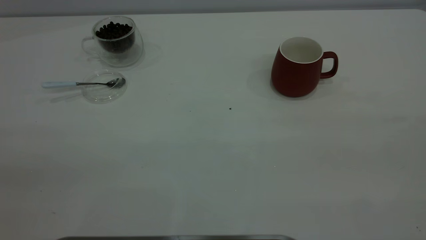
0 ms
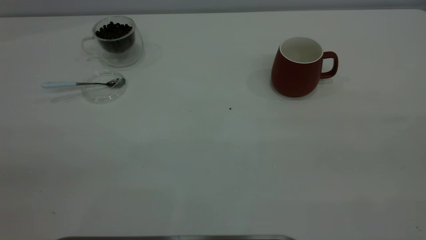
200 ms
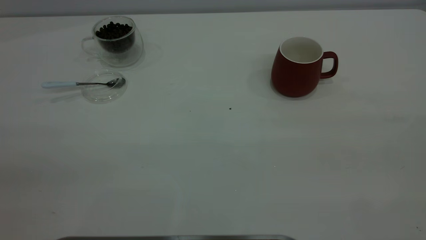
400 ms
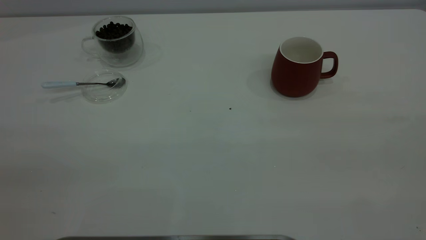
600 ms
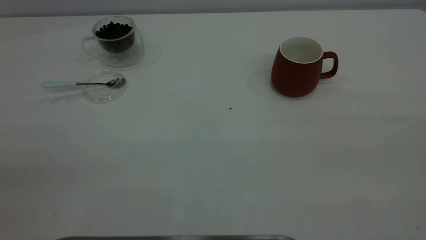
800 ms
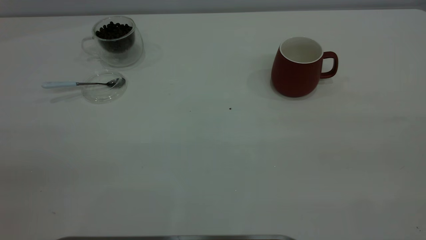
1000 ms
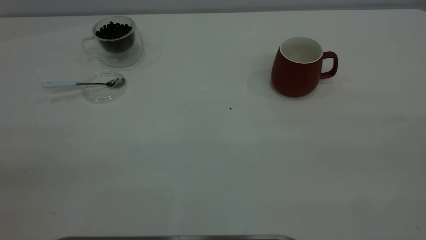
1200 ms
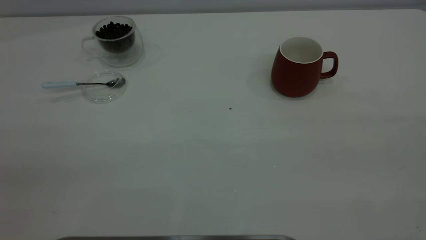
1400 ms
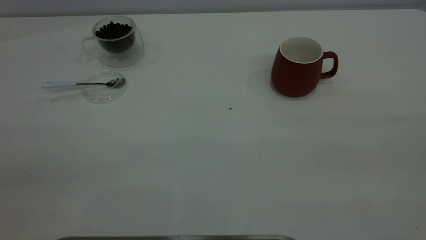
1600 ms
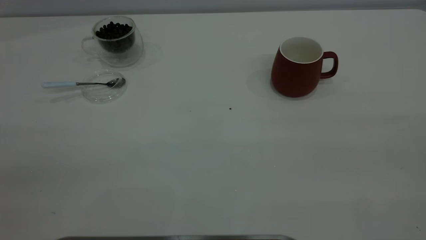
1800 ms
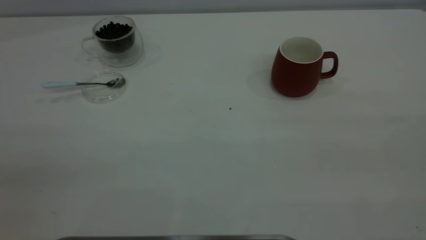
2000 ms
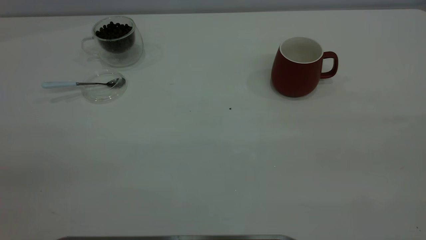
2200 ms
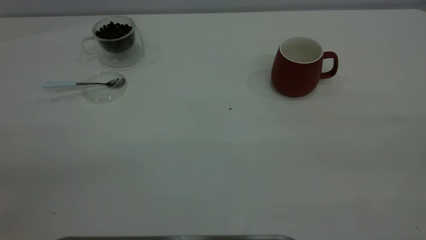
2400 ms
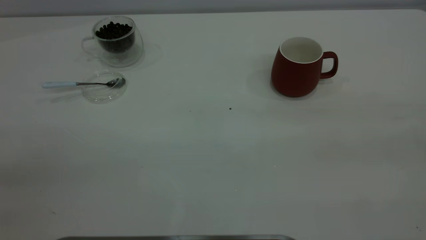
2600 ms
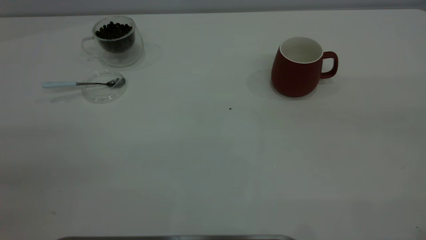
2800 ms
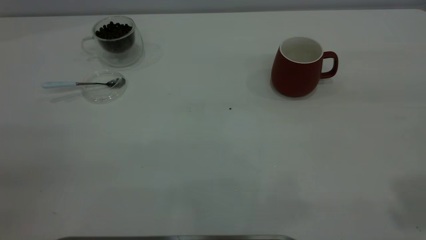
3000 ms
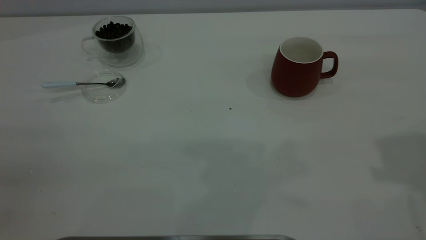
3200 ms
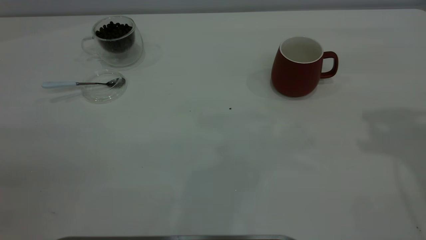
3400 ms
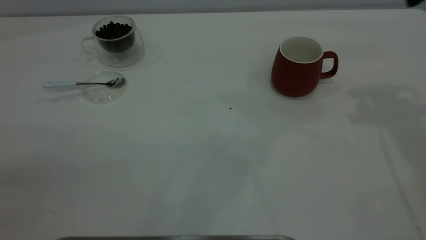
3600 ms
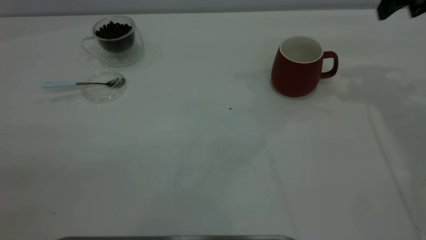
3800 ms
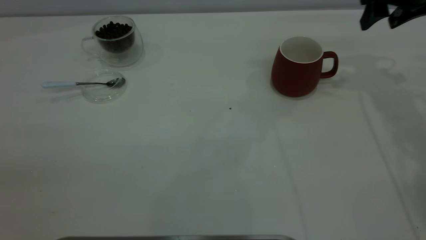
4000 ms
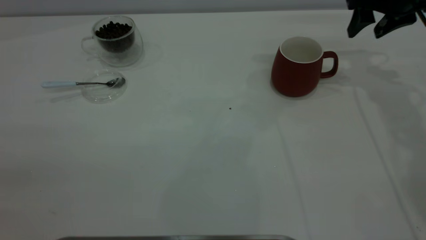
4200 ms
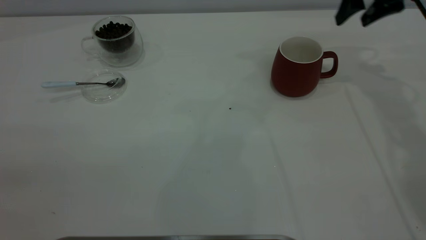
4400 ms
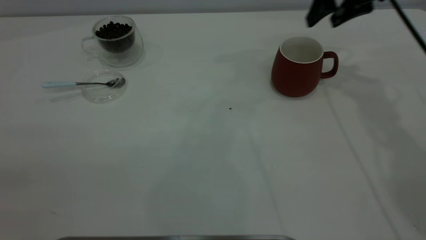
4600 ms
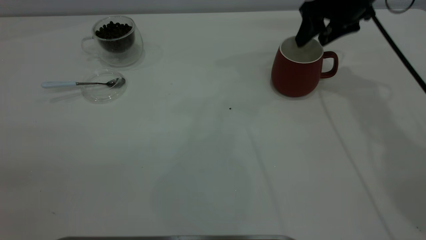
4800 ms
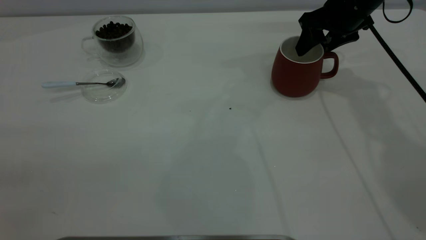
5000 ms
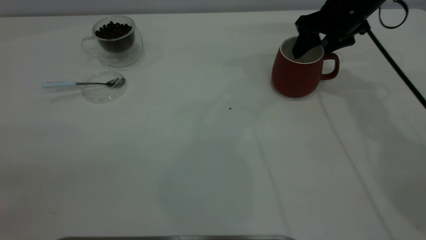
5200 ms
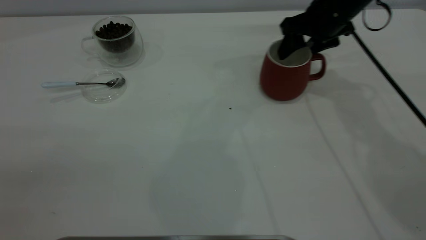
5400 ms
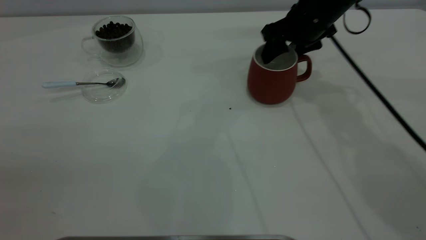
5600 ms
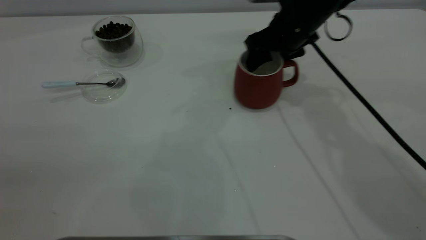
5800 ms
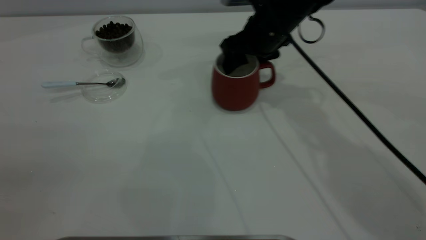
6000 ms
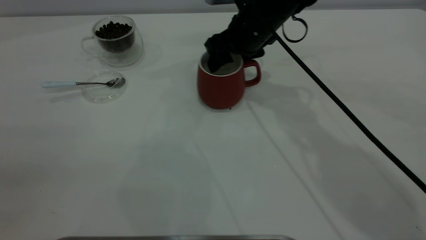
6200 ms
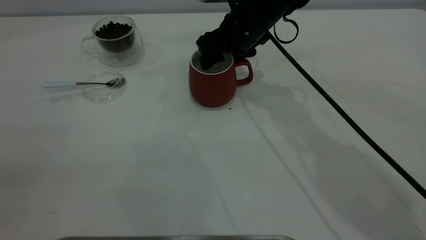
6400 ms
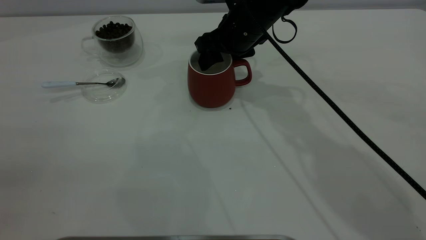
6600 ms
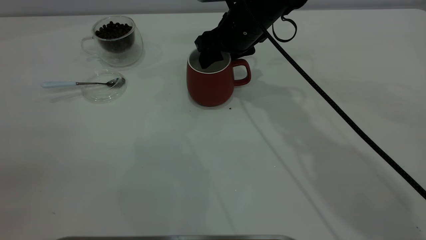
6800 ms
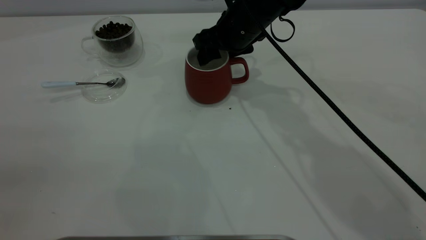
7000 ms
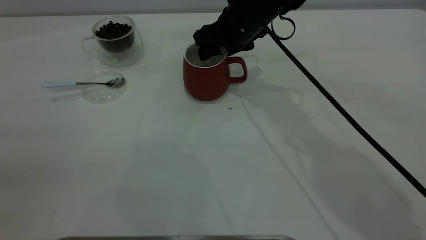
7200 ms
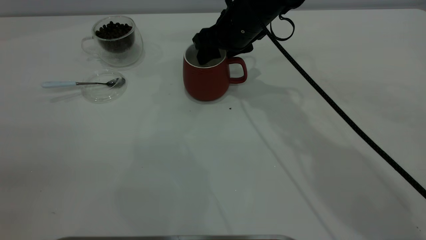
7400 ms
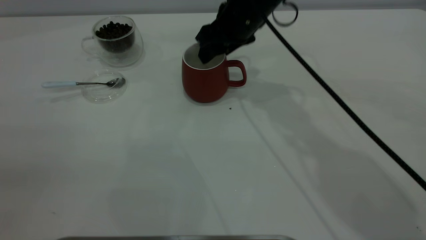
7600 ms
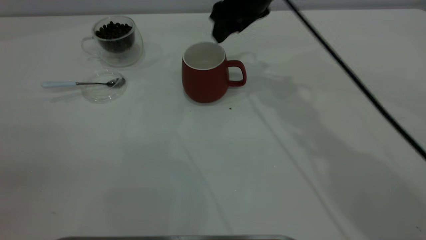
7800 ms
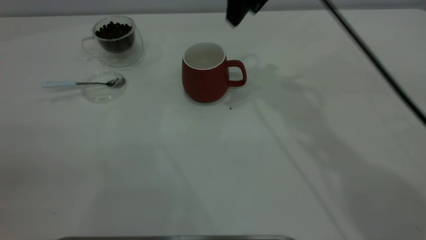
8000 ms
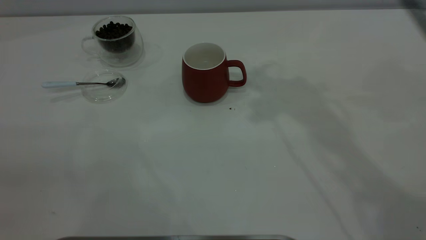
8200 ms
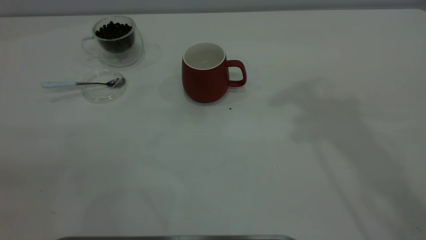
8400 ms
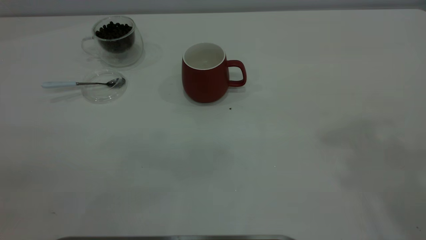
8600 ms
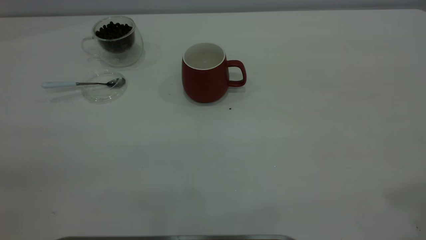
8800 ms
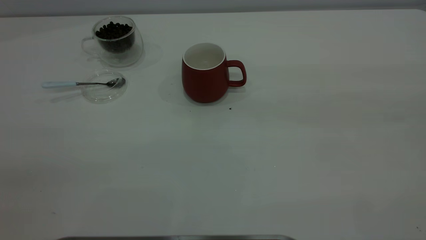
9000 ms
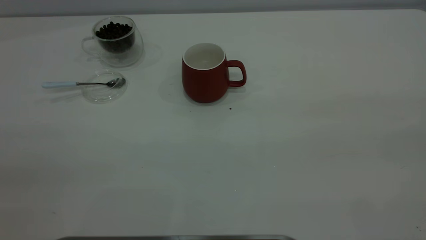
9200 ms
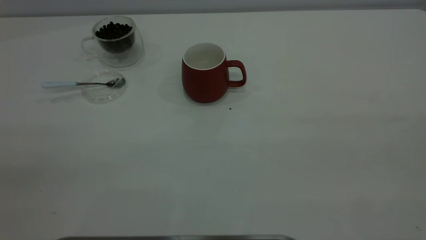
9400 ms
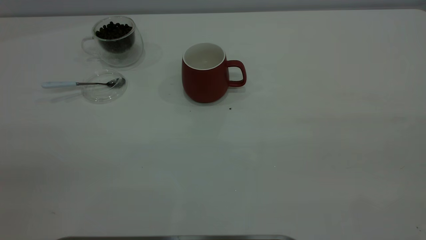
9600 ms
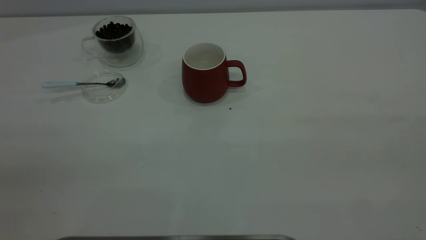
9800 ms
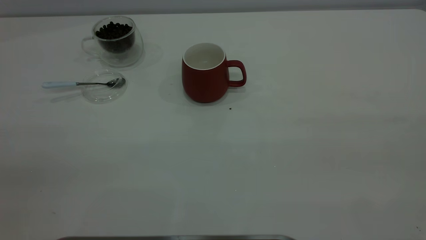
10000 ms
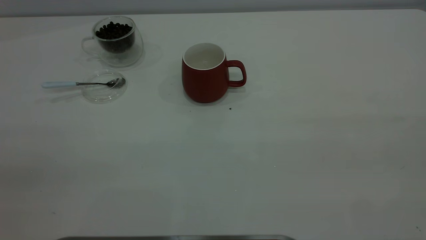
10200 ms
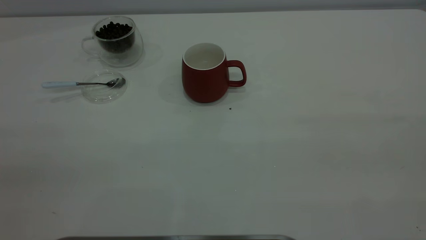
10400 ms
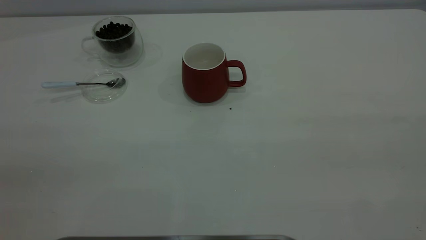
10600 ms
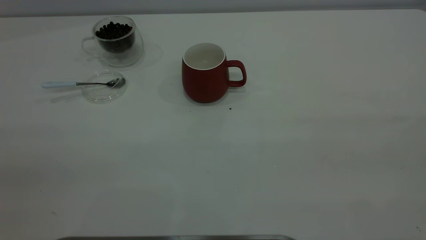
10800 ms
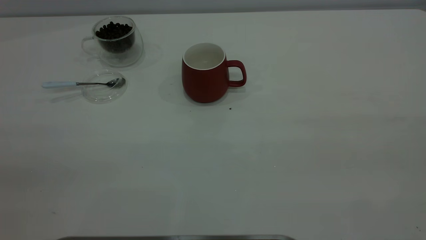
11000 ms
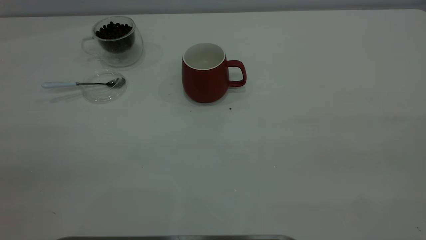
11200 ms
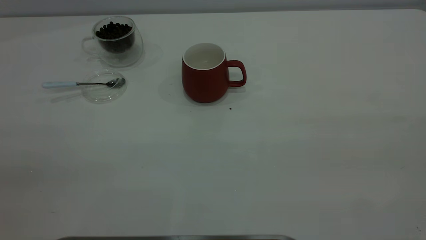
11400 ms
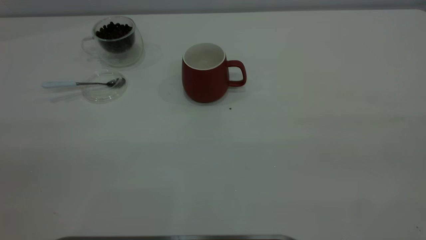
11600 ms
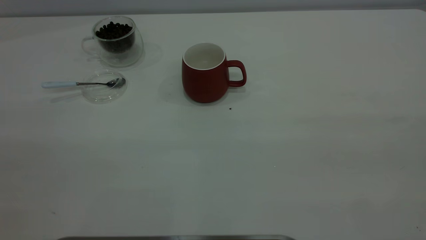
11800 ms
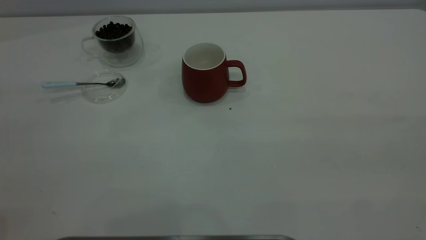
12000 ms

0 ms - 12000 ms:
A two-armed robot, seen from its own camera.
Task of the whole recording: the right gripper place the red cup in the center of the table, the left gripper take the blue spoon from the cup lid and scoop out the coffee beans from the coffee cup and put them into the red cup, the left gripper put the spoon back into the cup lid.
Step, 0 ms - 7600 ms: Move the cup to the center of view.
0 ms - 1600 ms: Neither gripper changes place.
3000 ms - 4400 ms: The right gripper shifts approximately 35 cm forward and downward.
4400 ms - 6000 ms: The right gripper goes approximately 20 cm to the left and downward.
6000 ms - 7600 ms: The grippers stay close to where they were, moving slightly.
7600 ms - 9000 ms: The right gripper is displaced backward, to the right and upward by some 50 cm.

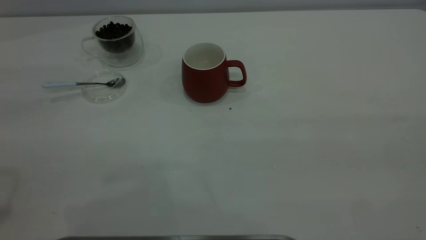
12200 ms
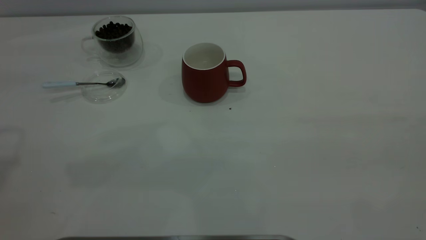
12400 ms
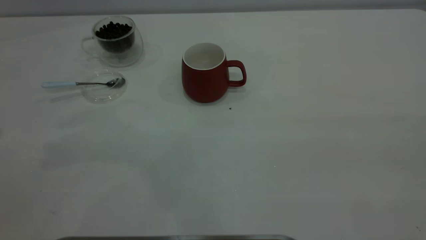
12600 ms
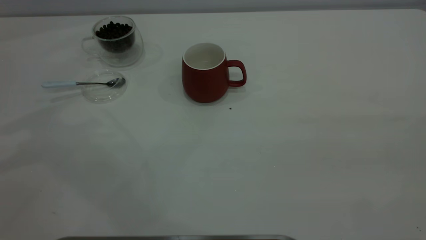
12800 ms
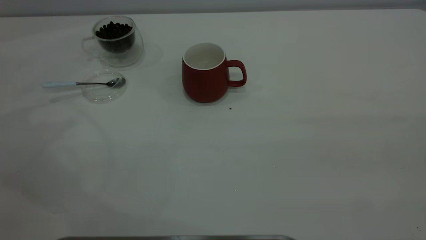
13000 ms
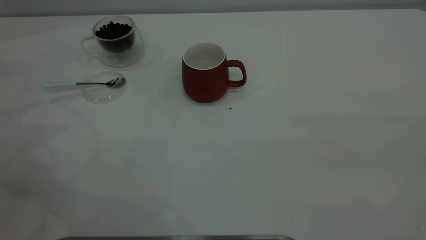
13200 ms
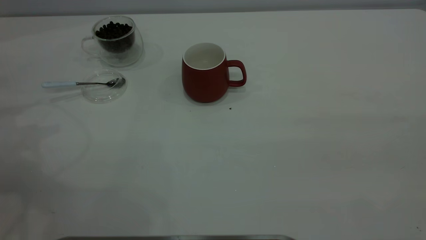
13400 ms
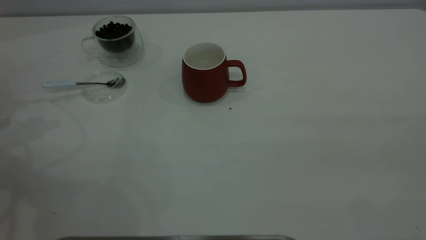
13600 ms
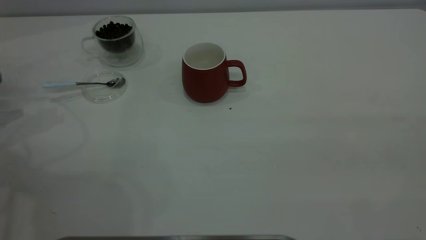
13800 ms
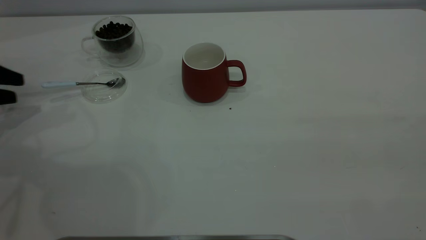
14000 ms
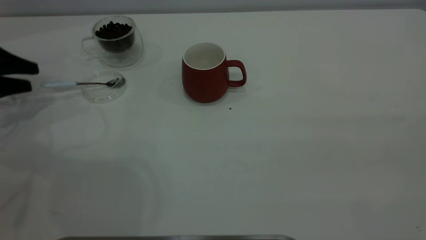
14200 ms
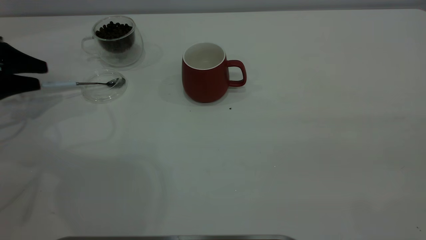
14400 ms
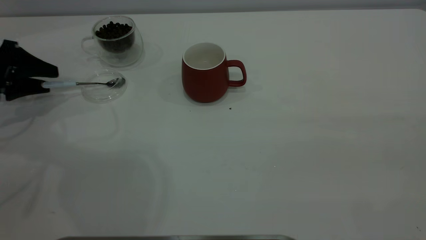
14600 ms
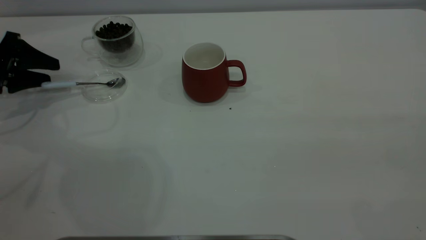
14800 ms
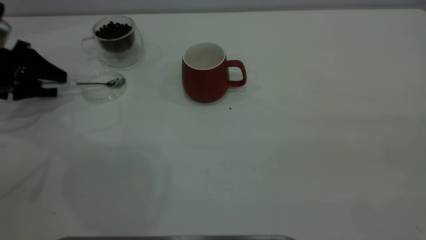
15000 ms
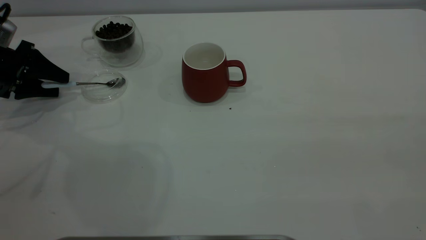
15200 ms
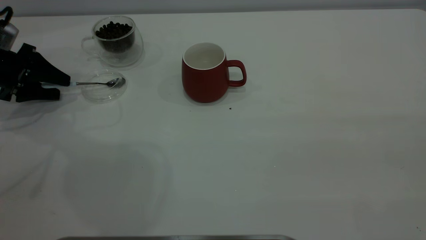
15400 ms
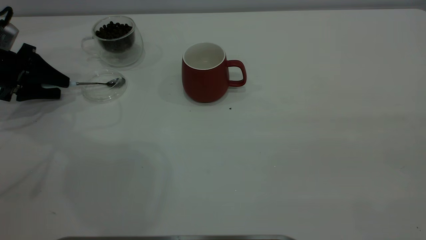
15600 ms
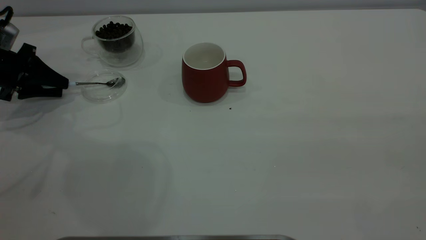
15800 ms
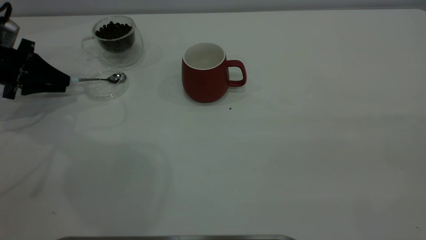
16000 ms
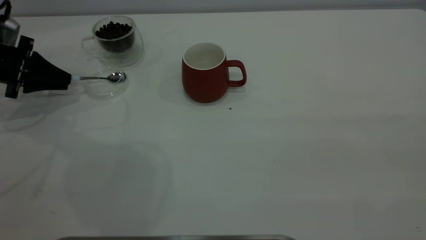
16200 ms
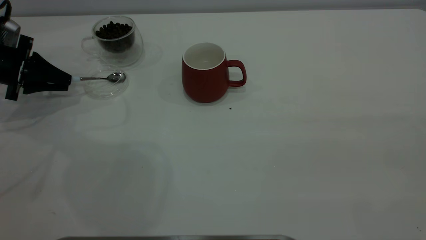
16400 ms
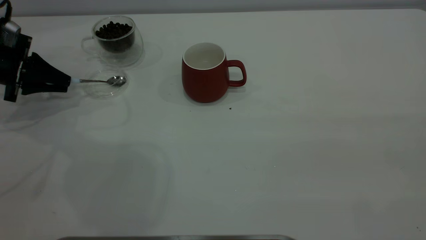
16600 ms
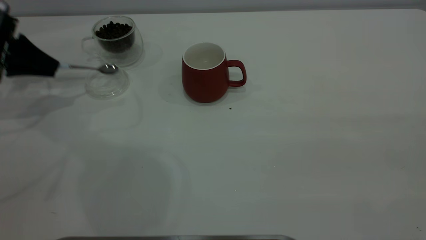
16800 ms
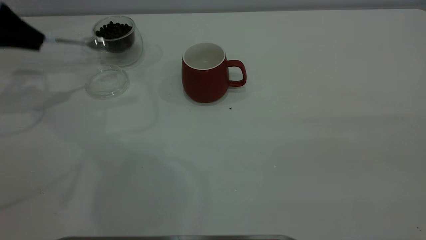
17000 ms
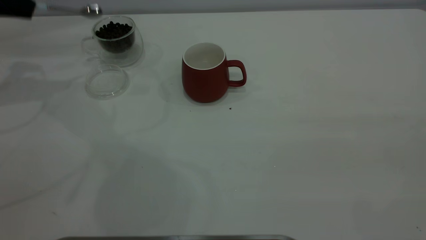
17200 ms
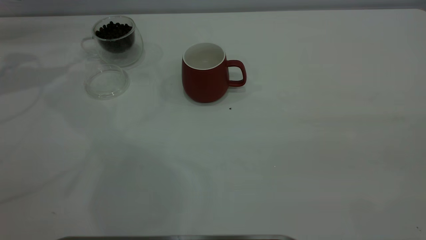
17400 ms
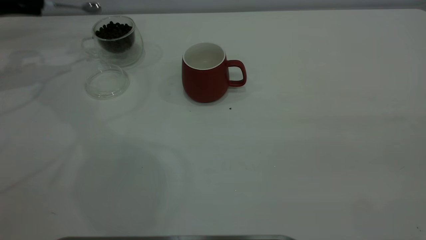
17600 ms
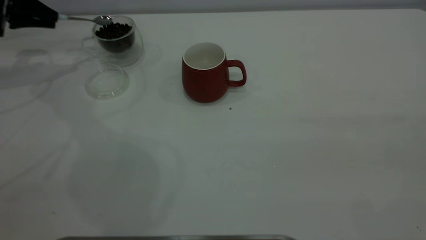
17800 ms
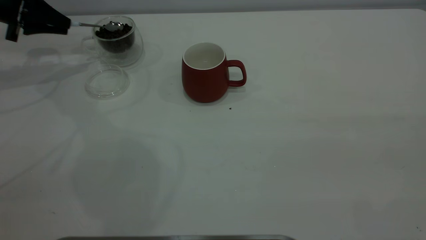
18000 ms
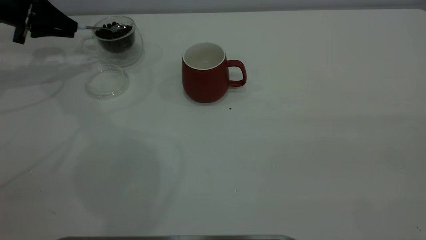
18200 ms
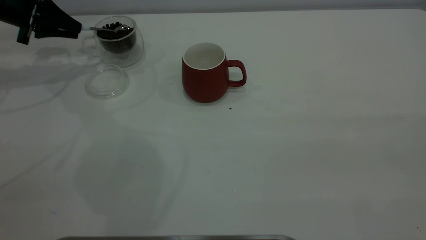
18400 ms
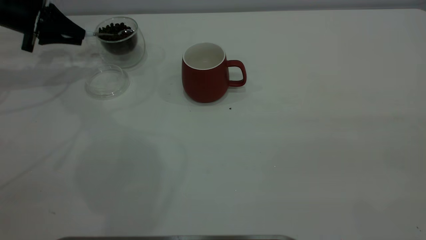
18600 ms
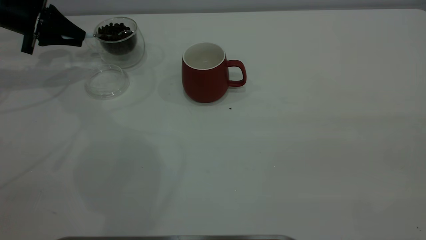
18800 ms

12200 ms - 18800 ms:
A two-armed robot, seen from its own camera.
Task of the whole recording: the right gripper place the red cup in the center of the table, the left gripper take the blue spoon from the cup lid and scoop out the coffee beans from the coffee cup and put them into the red cup, the left gripper put the spoon back into the cup lid.
Step, 12200 ms - 16800 ms: Pick up the spoon.
13800 ms - 15400 ms: The left gripper moves to the right and forward, roughly 10 cm.
15400 ms - 17200 ms: The left gripper is displaced upward by some 15 cm, and closes up.
17200 ms - 18800 ms: The left gripper goes approximately 10 cm downward and forward.
